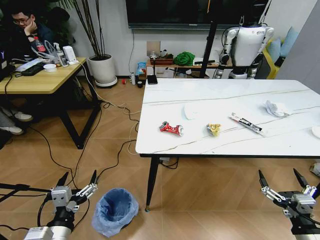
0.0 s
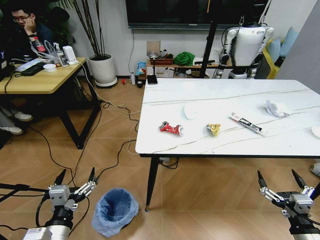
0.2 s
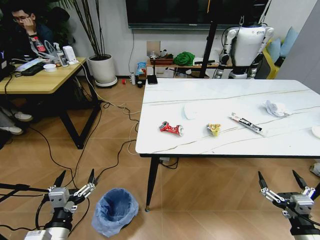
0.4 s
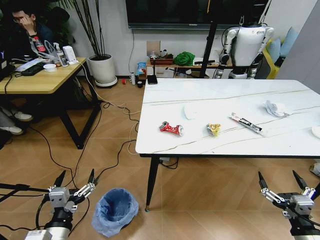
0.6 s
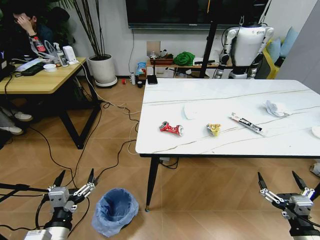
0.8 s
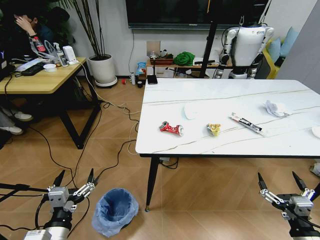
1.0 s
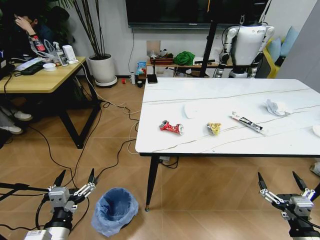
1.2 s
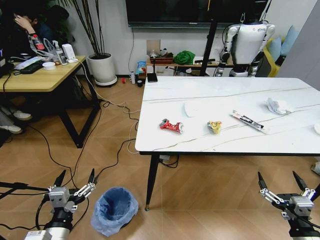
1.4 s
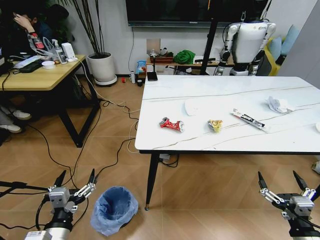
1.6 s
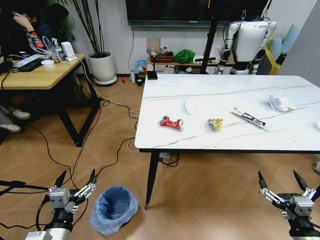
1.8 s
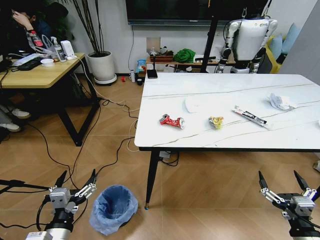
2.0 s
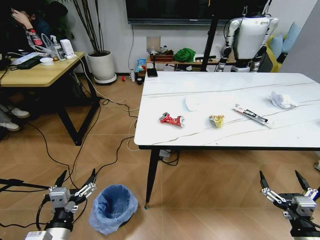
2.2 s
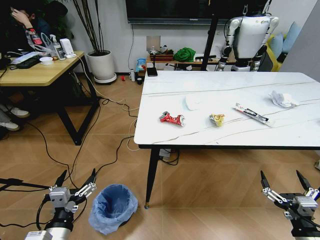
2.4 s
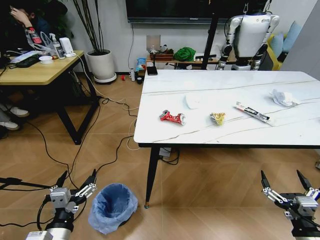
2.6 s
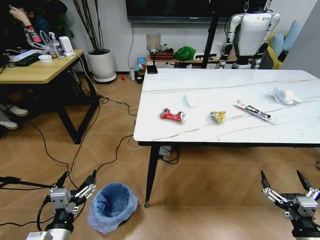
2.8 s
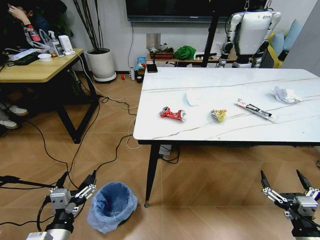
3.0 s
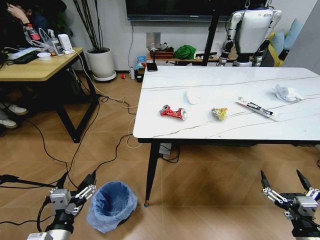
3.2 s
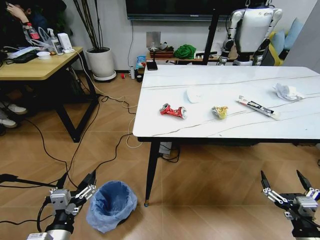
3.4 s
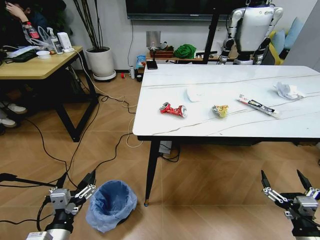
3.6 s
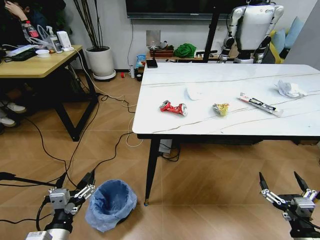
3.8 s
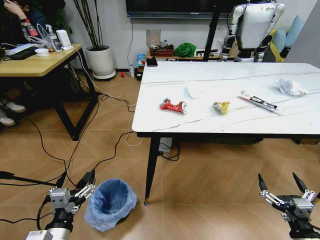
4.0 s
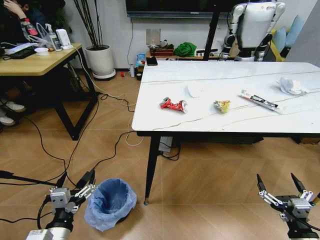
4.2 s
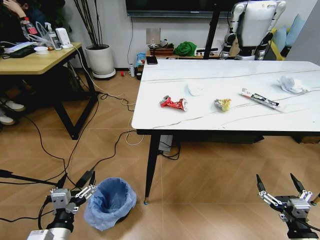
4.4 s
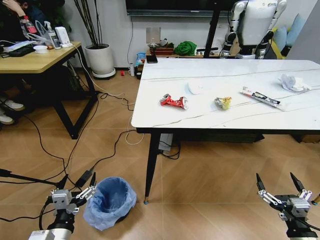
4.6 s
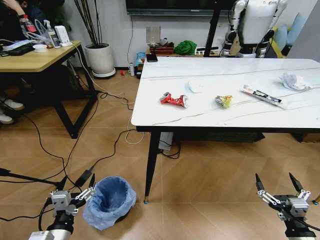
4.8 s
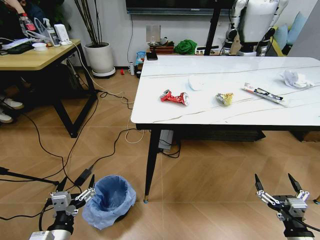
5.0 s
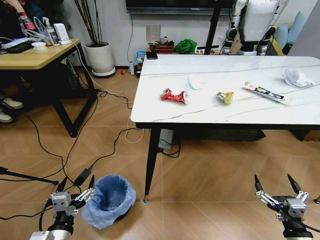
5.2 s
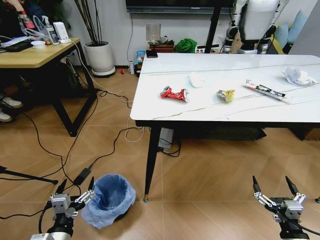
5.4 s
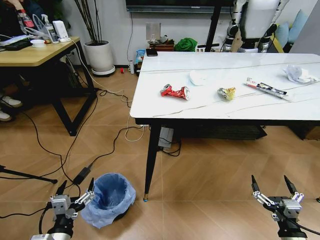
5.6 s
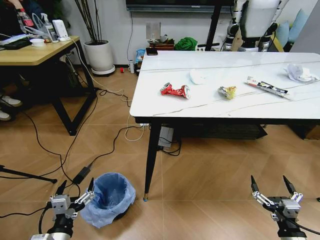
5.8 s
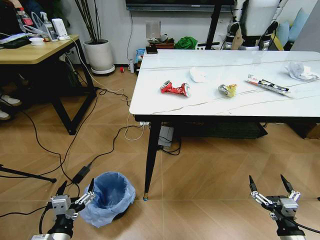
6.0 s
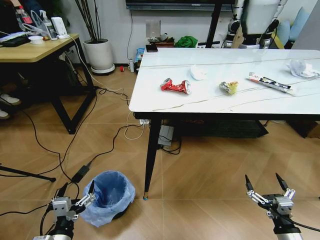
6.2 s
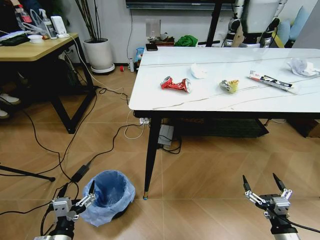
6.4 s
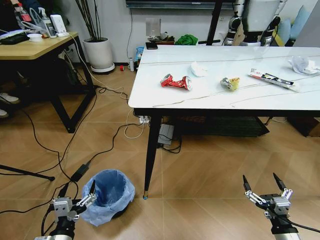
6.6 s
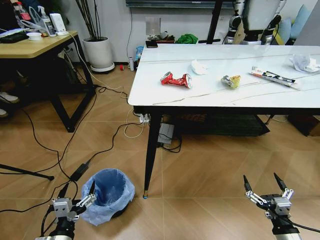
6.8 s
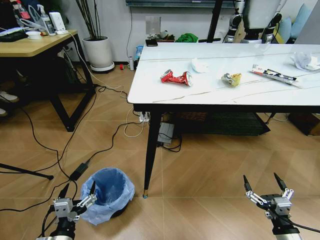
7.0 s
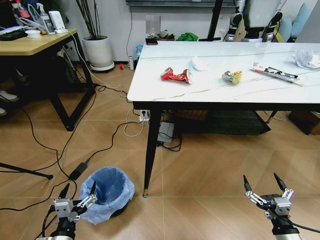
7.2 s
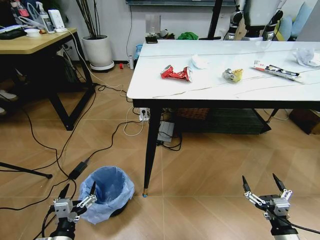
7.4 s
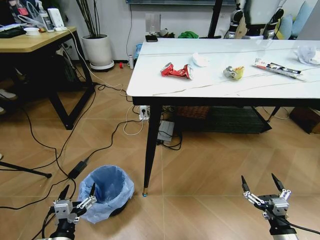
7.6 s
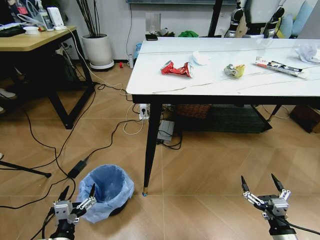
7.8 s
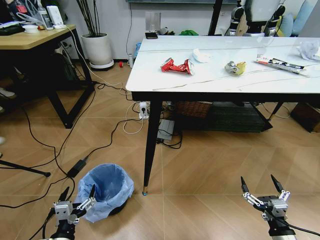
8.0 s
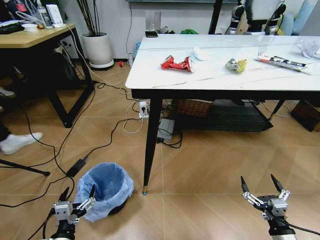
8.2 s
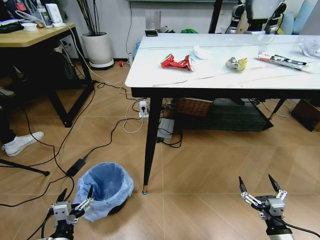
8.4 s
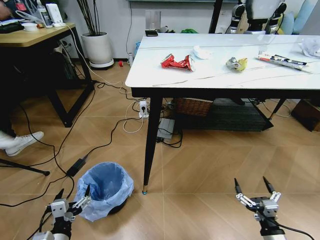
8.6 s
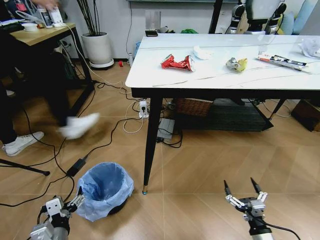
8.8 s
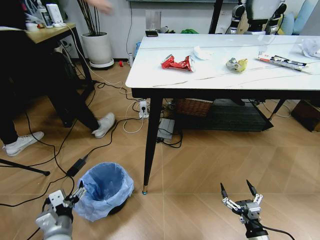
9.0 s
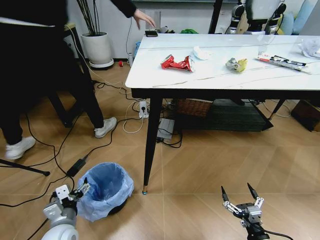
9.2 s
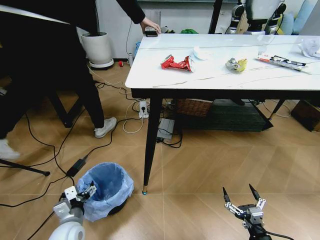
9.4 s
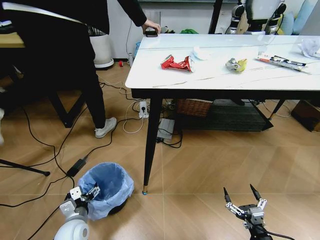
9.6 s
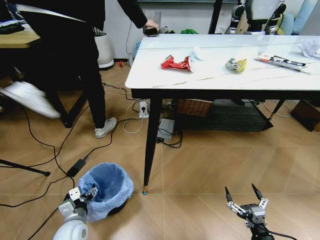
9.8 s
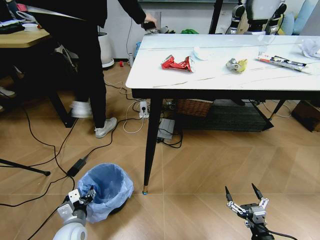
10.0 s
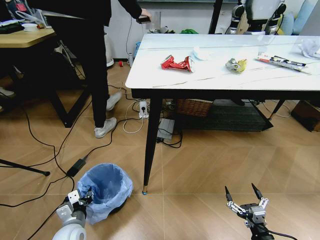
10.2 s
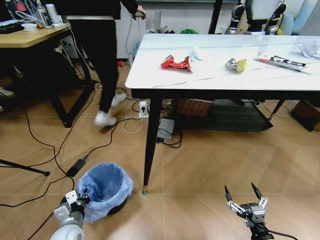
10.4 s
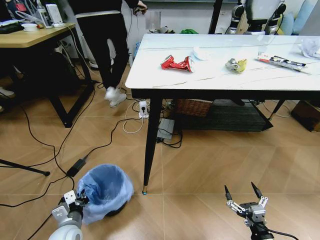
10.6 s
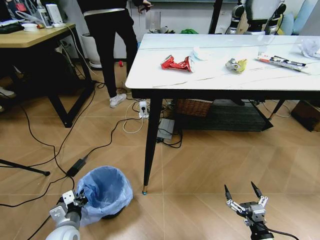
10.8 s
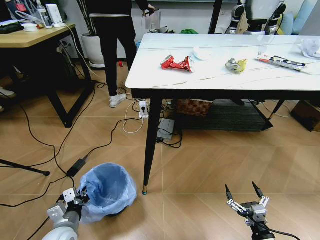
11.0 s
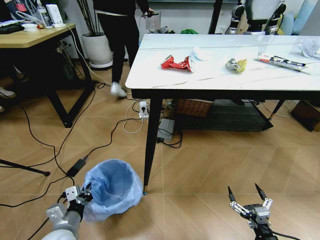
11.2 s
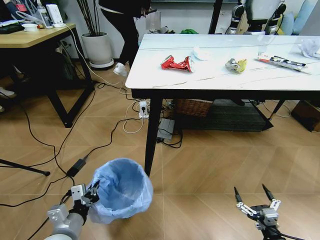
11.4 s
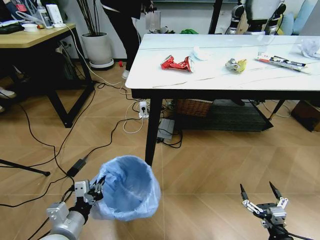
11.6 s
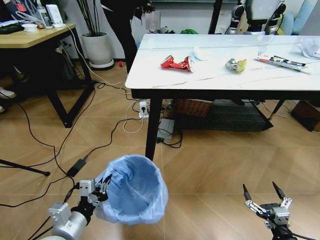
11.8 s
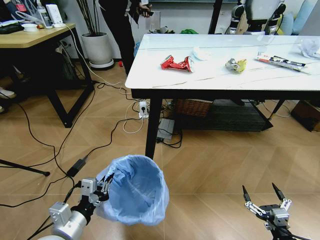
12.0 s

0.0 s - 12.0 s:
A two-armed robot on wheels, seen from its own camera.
Task of the whole recording: Pick up the trash bin and place the trash from the table into it.
7.6 s - 9.0 s: The left gripper shifts approximately 5 cm forward, while the right gripper moves downward, approximately 5 cm.
9.0 s - 10.4 s: The left gripper heads downward, covering roughly 5 cm, and closes up.
10.4 s - 12.0 s: The left gripper heads upward, covering roughly 15 cm. Meanwhile the right gripper changes place by some 5 cm.

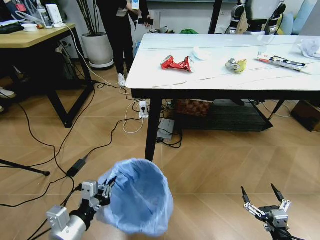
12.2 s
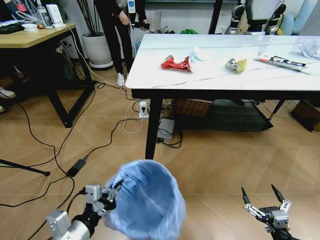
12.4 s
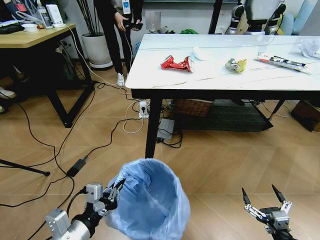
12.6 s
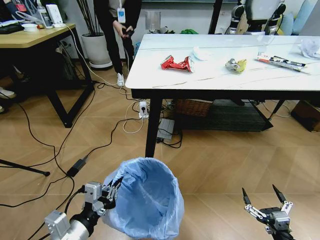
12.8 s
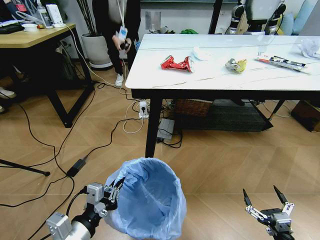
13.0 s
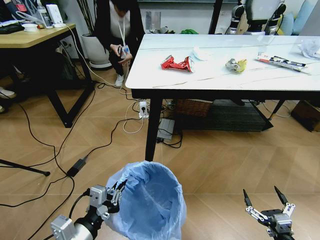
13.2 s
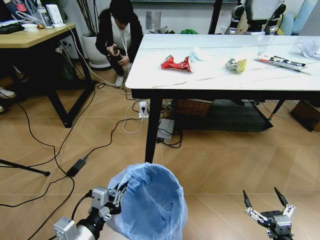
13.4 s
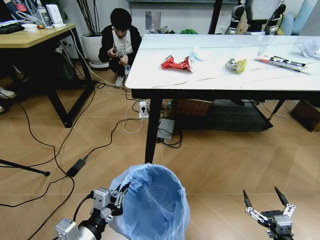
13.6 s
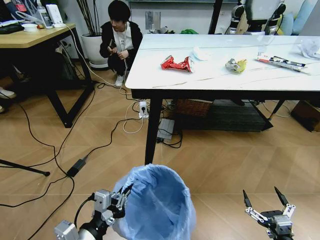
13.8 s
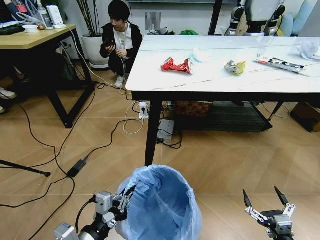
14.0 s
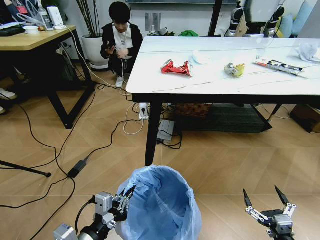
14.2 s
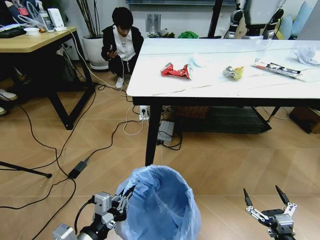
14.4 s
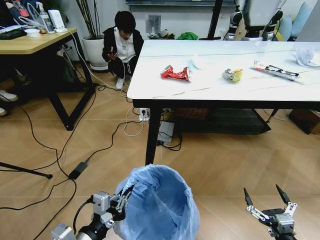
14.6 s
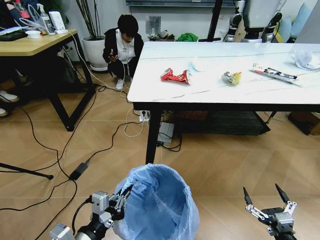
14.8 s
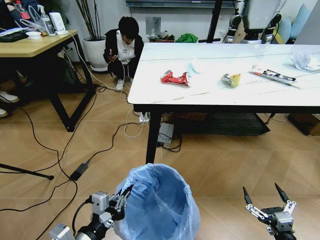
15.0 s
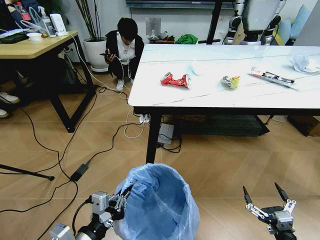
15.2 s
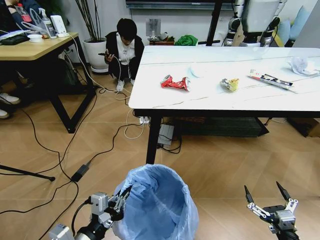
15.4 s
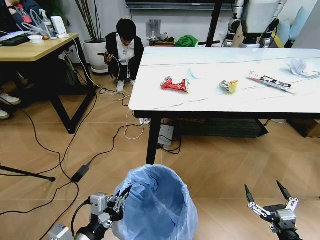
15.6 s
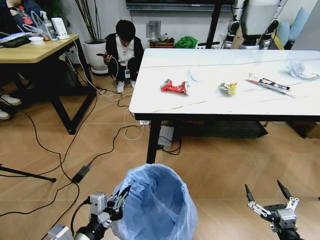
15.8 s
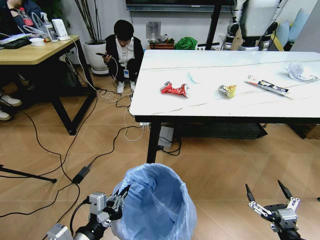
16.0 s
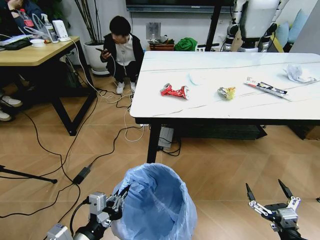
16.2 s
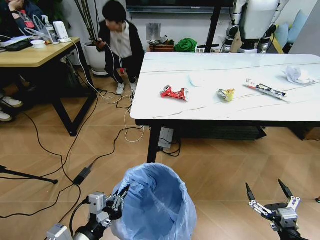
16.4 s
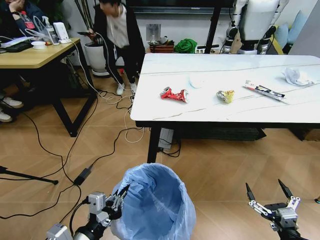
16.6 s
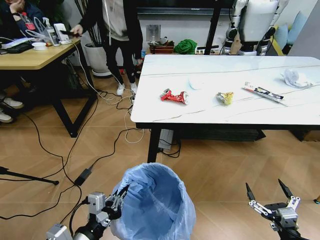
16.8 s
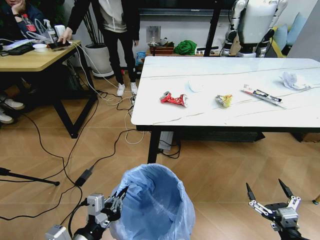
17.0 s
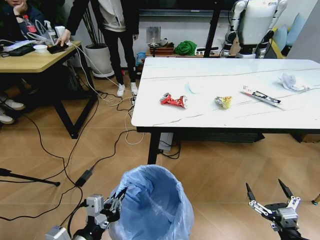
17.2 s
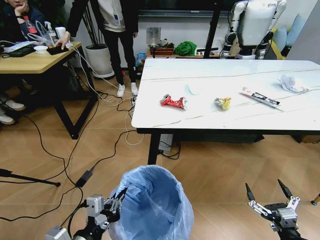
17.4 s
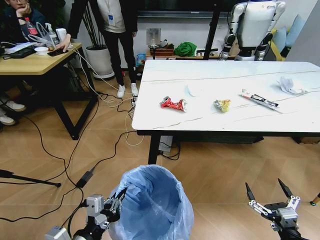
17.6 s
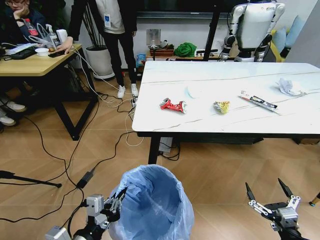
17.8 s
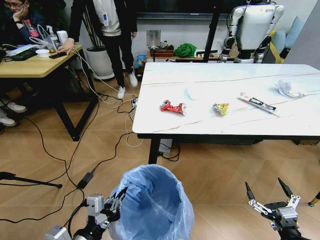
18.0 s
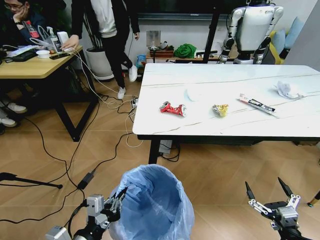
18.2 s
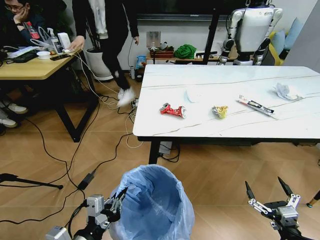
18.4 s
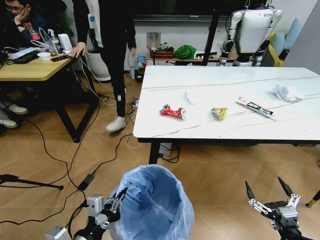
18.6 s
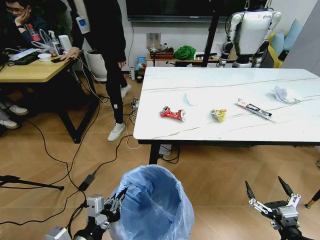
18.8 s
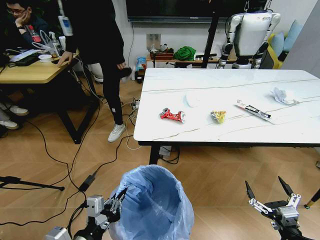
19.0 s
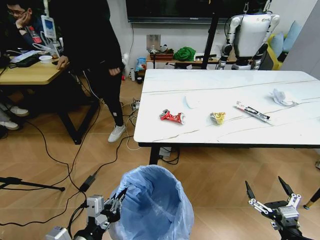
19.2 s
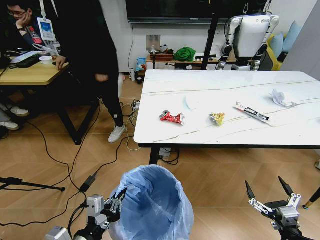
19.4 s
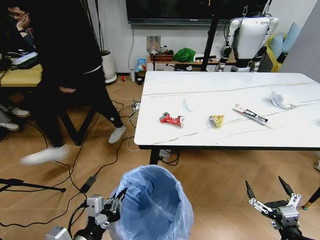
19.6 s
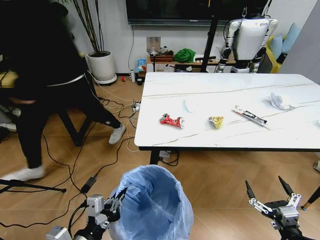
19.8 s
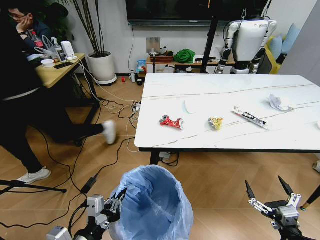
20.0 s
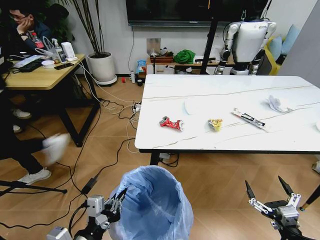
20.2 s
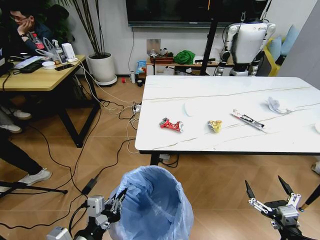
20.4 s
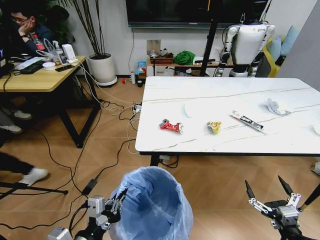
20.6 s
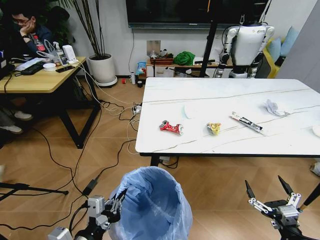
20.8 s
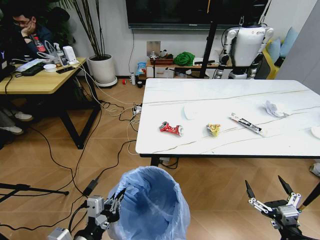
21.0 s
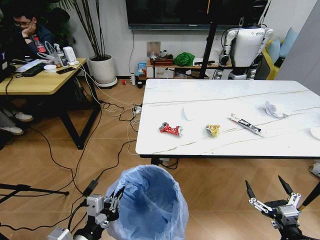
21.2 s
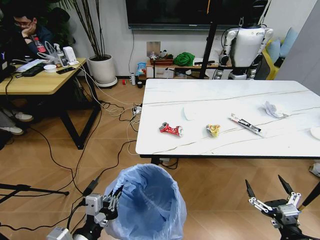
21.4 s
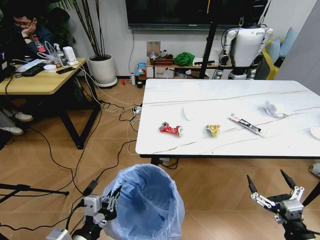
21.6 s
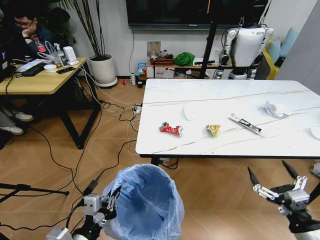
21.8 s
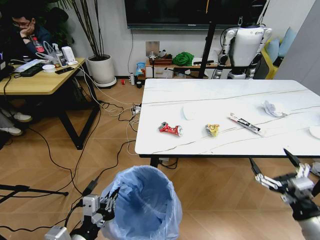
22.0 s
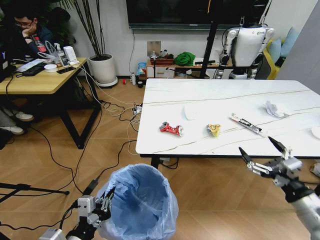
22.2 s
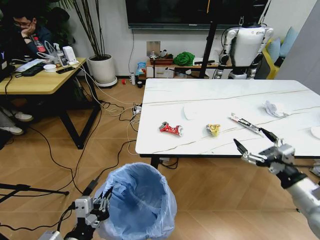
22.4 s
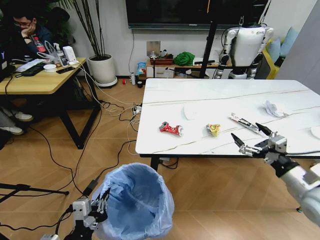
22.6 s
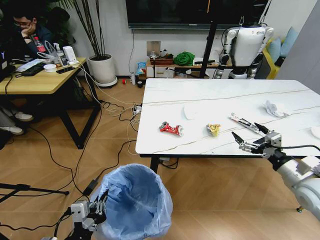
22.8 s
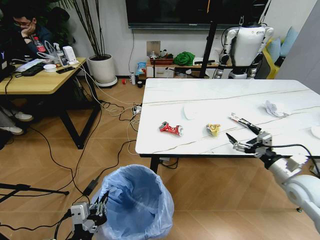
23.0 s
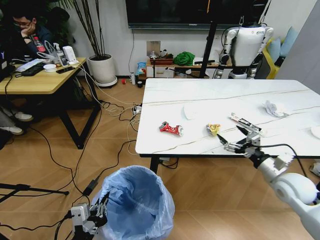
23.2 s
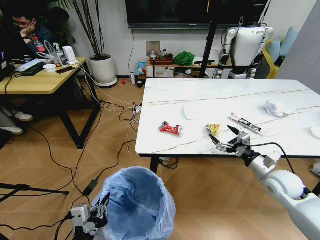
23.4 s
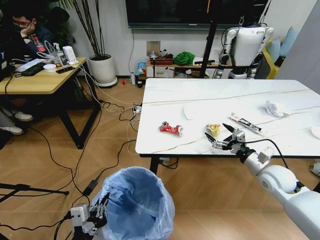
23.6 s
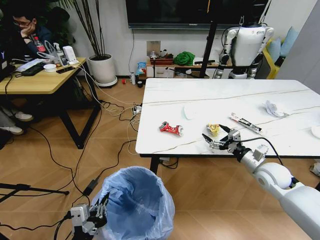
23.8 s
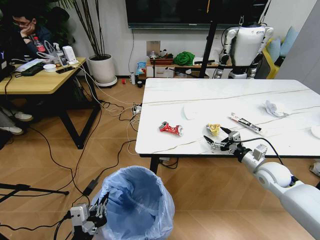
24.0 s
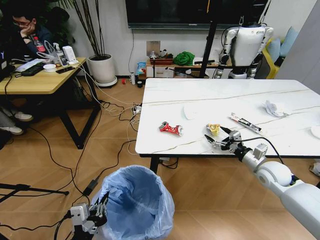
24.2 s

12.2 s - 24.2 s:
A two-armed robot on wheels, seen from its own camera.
Task of the whole recording: Pick up the trash bin and place the trash from the table into it.
12.2 s - 13.8 s: The left gripper changes place by some 5 cm.
21.2 s - 22.6 s: The right gripper is displaced forward and upward by approximately 20 cm.
22.6 s - 24.2 s: The right gripper travels forward and downward by roughly 15 cm.
